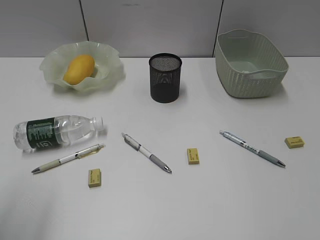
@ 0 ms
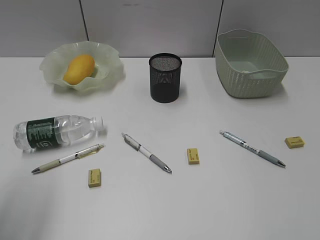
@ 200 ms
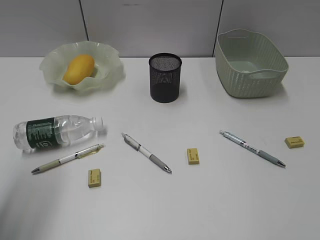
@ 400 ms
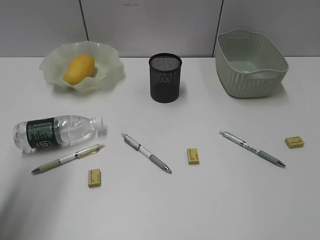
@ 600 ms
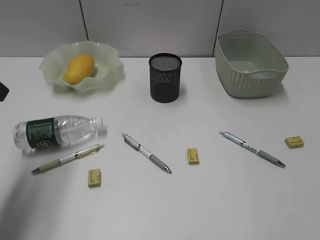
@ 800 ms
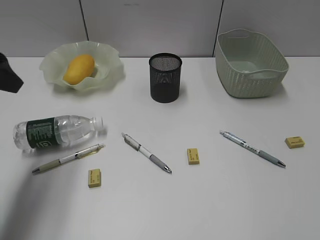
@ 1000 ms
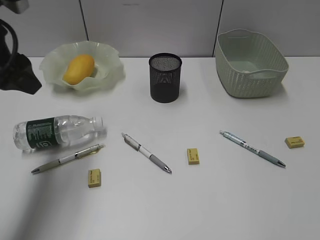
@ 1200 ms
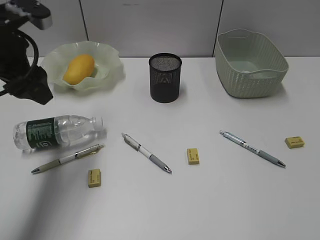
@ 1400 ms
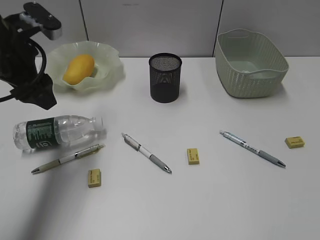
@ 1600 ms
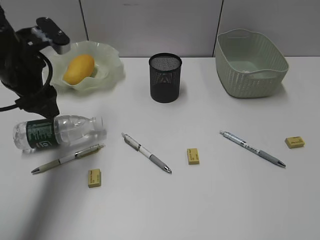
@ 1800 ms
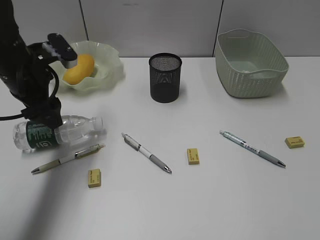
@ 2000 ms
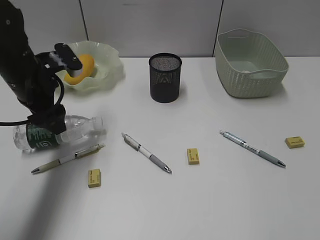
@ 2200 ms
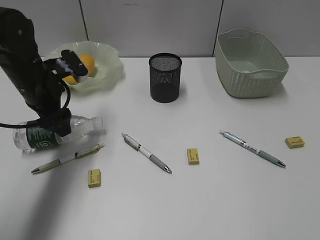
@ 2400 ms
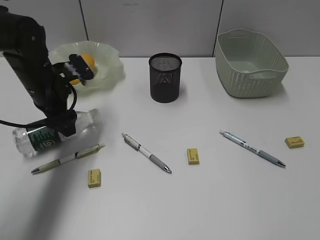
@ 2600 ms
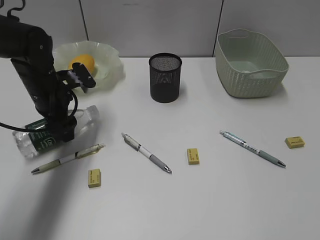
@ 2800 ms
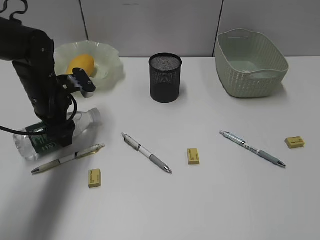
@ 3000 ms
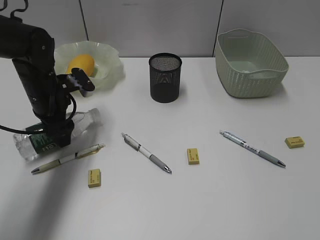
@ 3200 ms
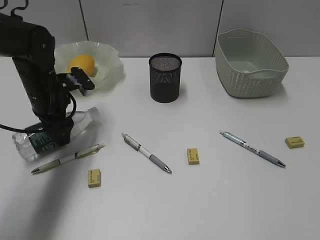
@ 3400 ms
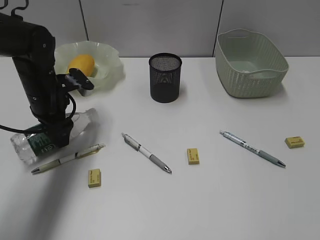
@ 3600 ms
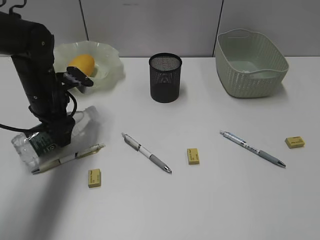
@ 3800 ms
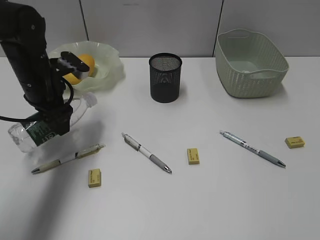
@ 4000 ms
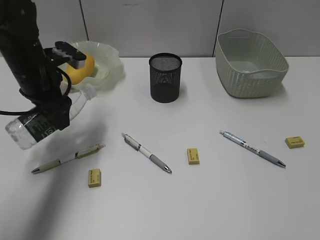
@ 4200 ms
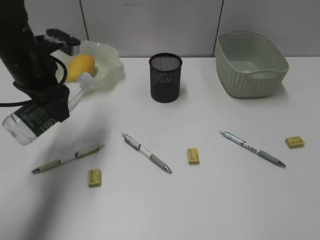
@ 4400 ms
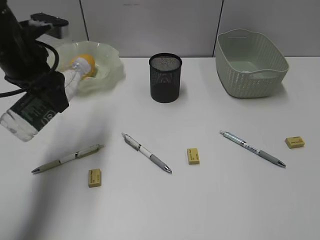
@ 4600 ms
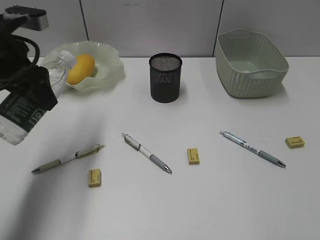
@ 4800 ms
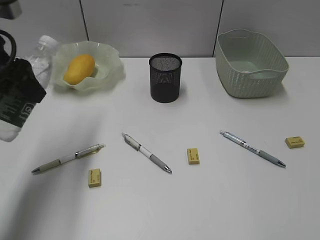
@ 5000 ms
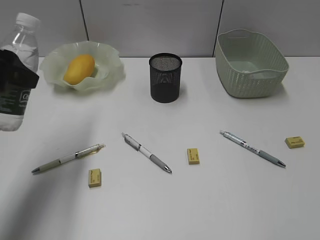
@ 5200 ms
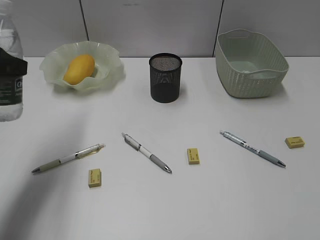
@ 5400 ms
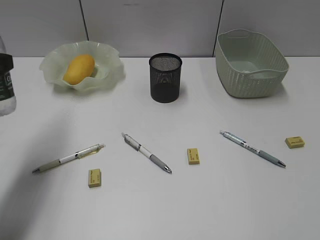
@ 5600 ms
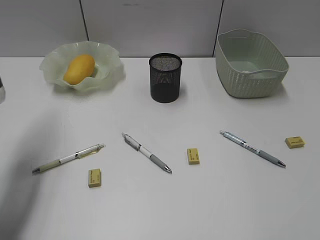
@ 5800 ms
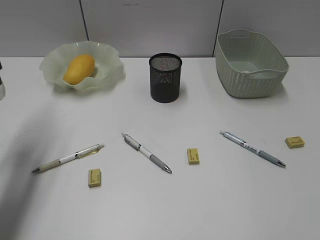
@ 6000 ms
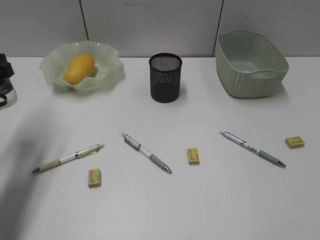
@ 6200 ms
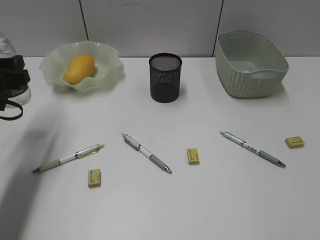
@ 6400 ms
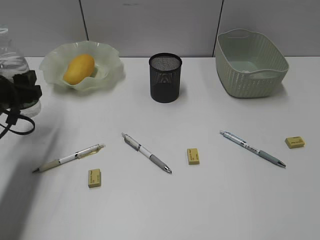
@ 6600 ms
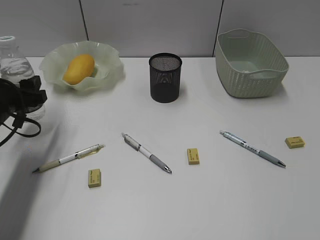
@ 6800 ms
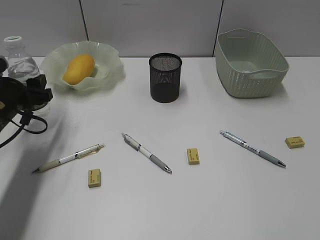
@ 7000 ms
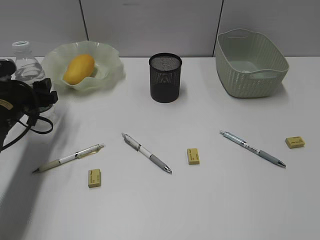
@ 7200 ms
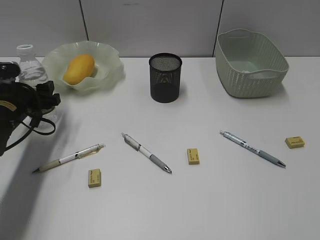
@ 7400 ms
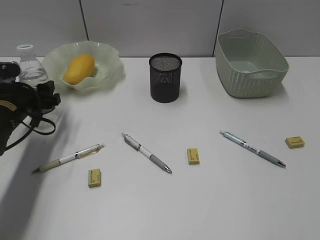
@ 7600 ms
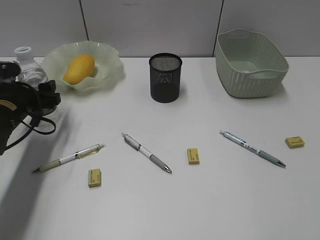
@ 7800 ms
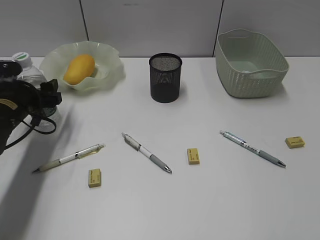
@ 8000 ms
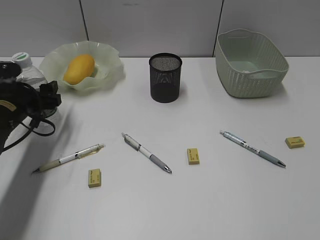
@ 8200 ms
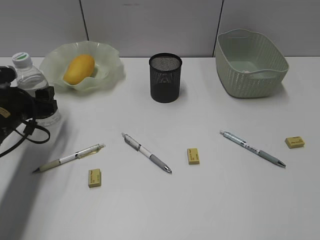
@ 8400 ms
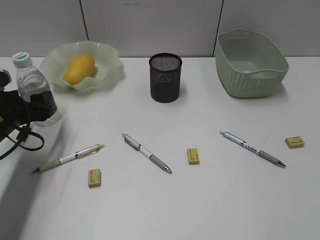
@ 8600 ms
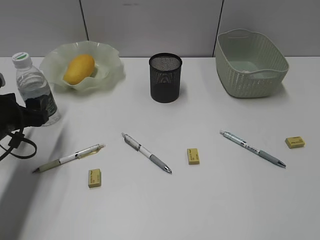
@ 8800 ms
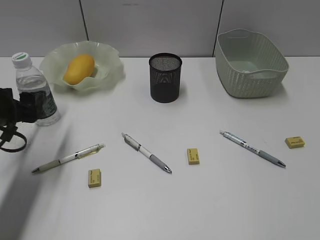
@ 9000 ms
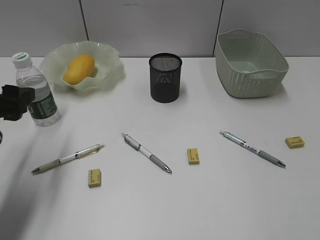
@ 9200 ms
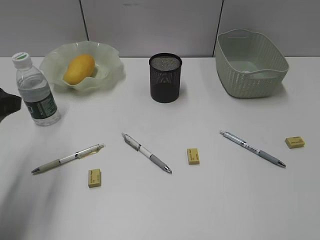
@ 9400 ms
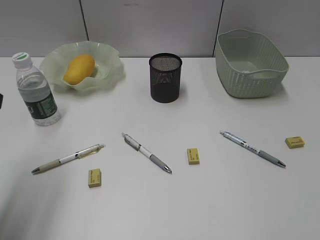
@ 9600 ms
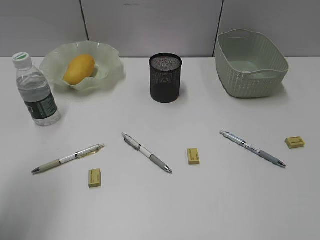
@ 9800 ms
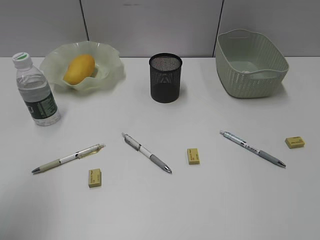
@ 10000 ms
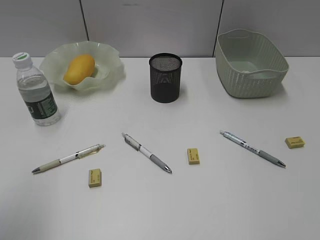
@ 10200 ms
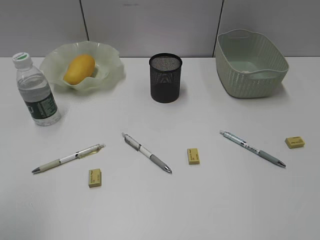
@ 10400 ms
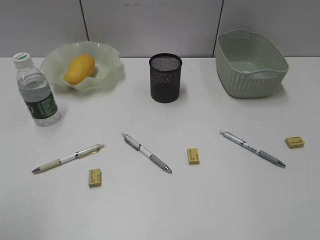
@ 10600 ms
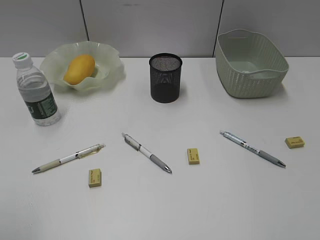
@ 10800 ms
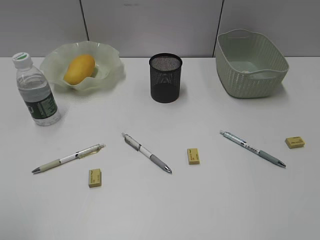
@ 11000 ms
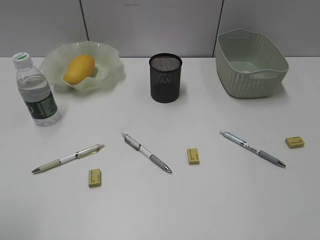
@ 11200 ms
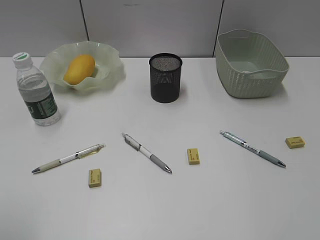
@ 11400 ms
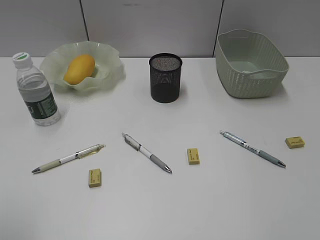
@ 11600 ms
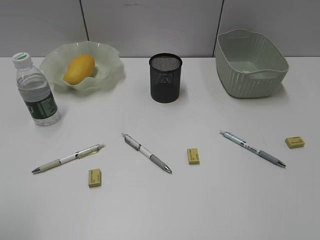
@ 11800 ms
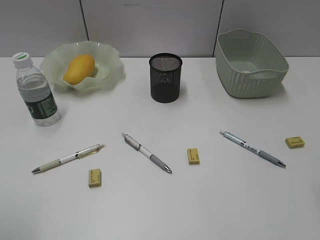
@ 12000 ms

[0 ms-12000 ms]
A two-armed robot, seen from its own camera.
Step, 0 ms to 3400 ms: Grasp the bottle with left gripper.
Step, 3600 ms to 8600 ms: Stand the bottle with left gripper.
0 ms to 1600 ms: The left gripper shifts approximately 20 cm forward.
1600 ms to 3000 ms: The left gripper heads downward and forward, covering some 15 cm.
3000 ms to 4400 ms: The left gripper moves upward, roughly 10 cm.
4400 ms to 6000 ms: The left gripper travels backward and to the left by some 15 cm.
6000 ms to 7600 ms: The left gripper goes about 15 cm downward and forward.
7600 ms to 9000 ms: The left gripper shifts roughly 5 cm backward.
9000 ms to 10400 ms: The left gripper heads backward and upward, covering approximately 25 cm.

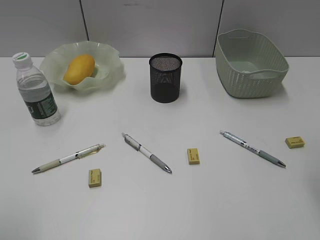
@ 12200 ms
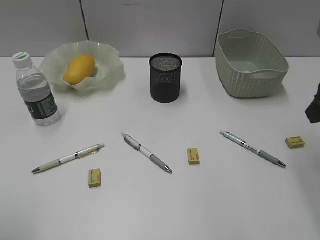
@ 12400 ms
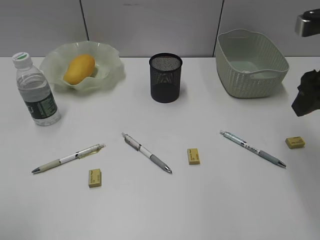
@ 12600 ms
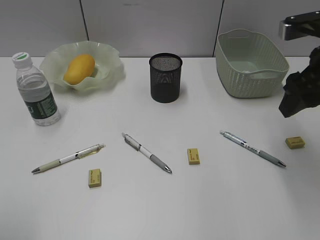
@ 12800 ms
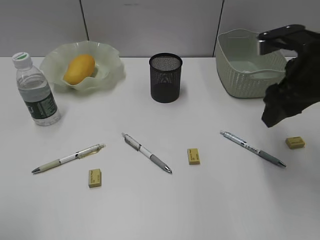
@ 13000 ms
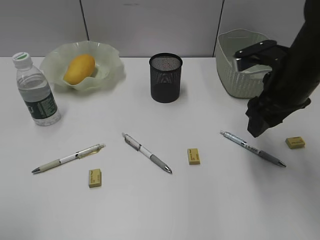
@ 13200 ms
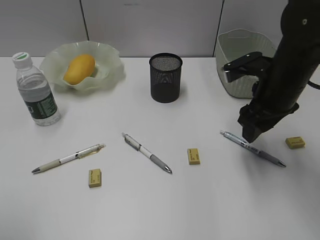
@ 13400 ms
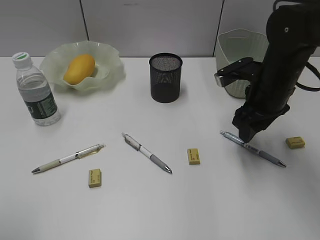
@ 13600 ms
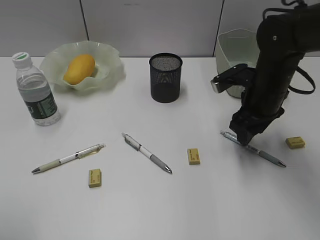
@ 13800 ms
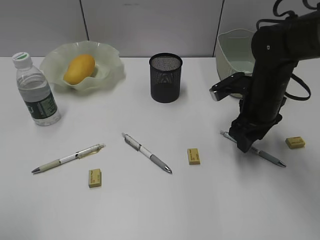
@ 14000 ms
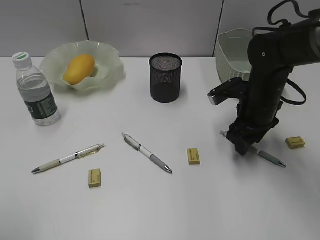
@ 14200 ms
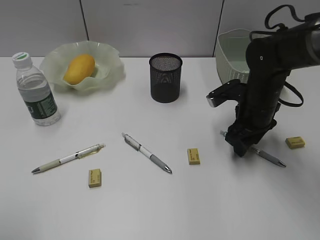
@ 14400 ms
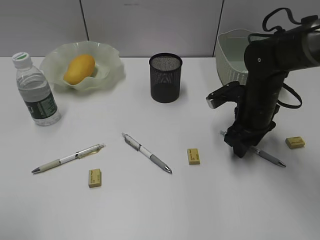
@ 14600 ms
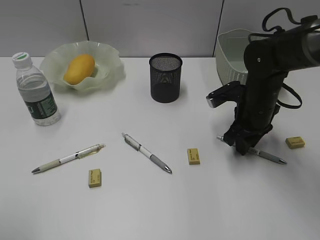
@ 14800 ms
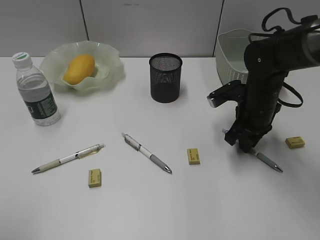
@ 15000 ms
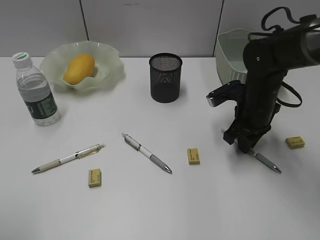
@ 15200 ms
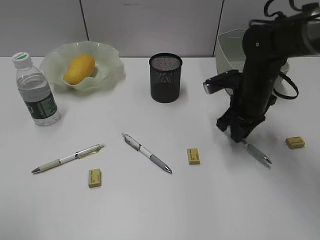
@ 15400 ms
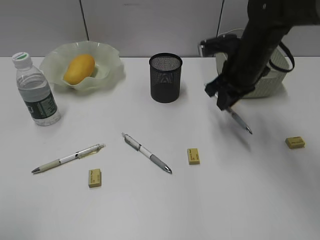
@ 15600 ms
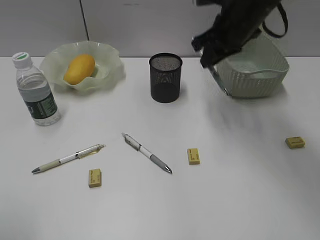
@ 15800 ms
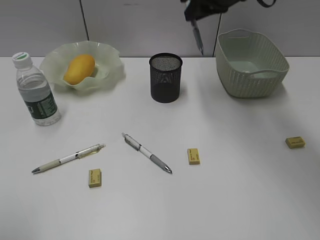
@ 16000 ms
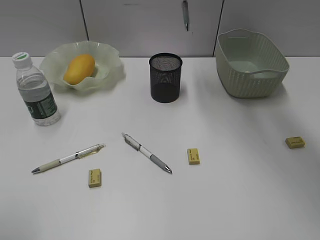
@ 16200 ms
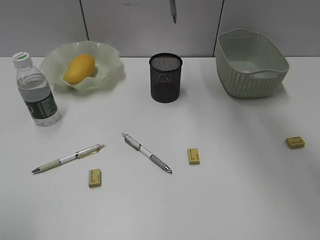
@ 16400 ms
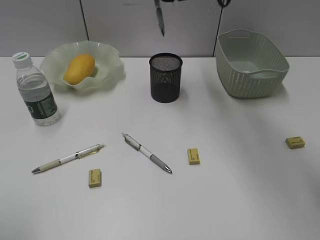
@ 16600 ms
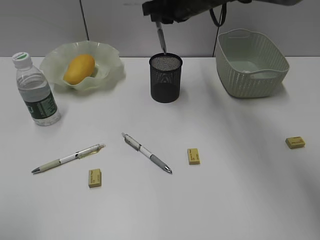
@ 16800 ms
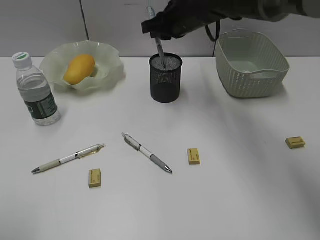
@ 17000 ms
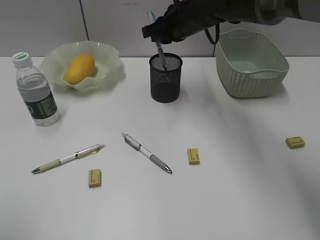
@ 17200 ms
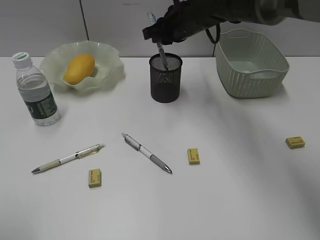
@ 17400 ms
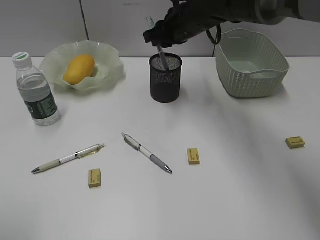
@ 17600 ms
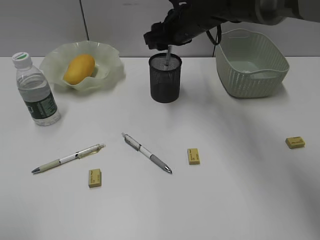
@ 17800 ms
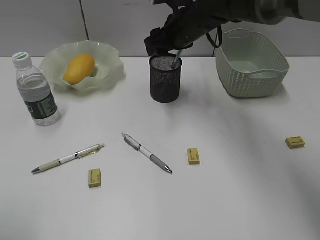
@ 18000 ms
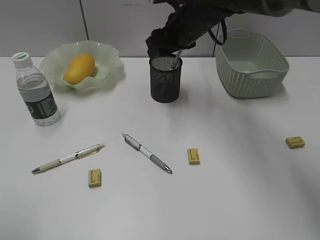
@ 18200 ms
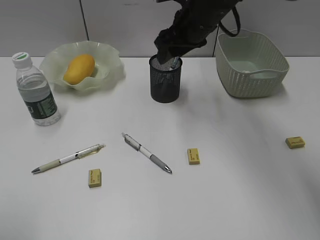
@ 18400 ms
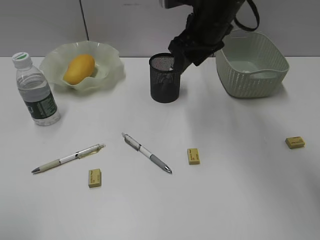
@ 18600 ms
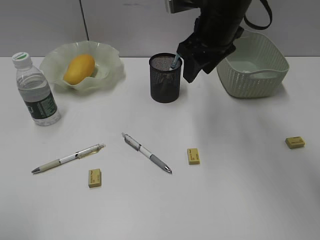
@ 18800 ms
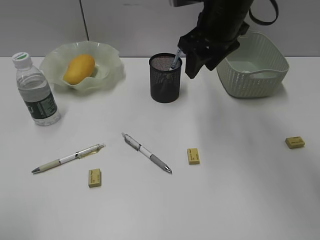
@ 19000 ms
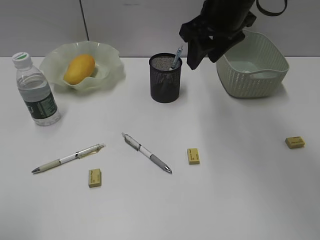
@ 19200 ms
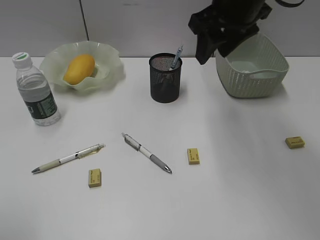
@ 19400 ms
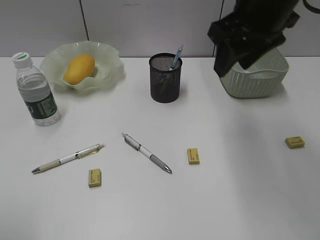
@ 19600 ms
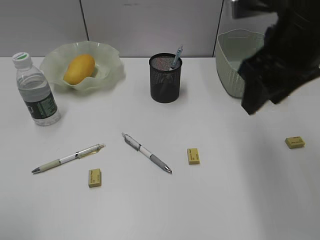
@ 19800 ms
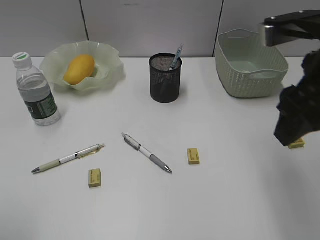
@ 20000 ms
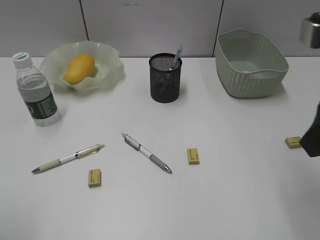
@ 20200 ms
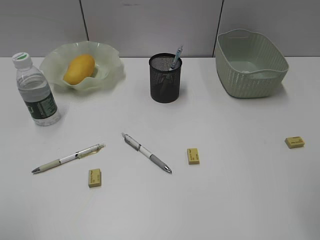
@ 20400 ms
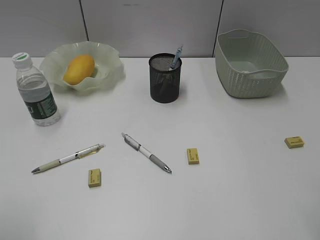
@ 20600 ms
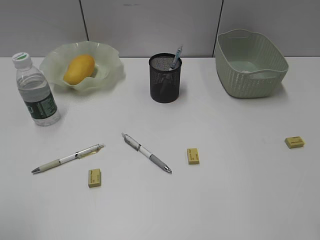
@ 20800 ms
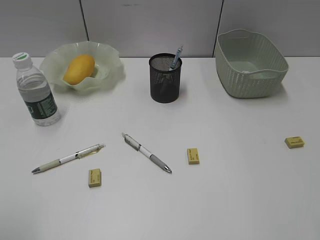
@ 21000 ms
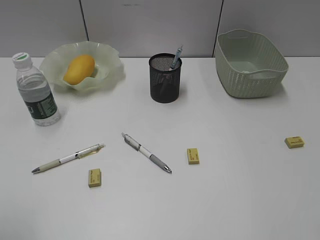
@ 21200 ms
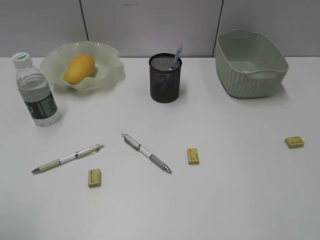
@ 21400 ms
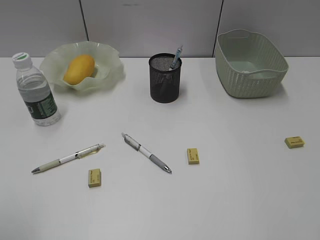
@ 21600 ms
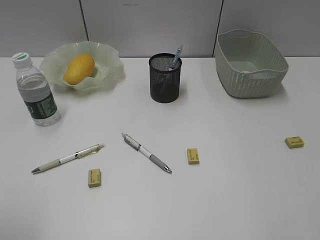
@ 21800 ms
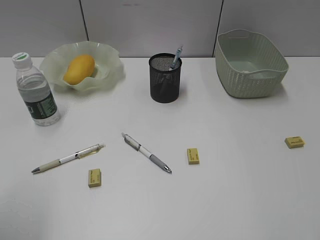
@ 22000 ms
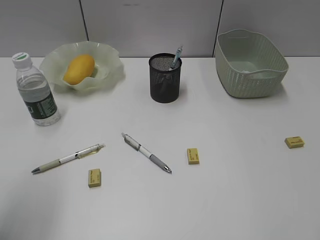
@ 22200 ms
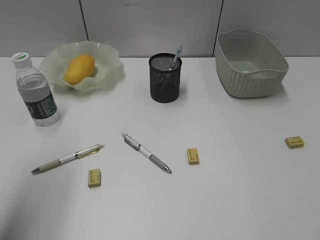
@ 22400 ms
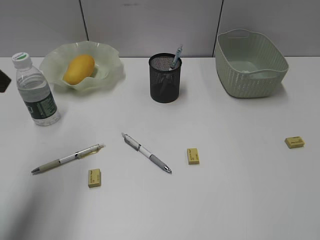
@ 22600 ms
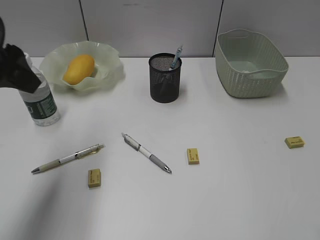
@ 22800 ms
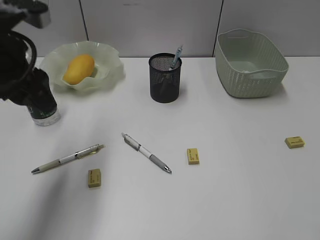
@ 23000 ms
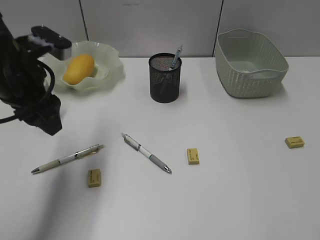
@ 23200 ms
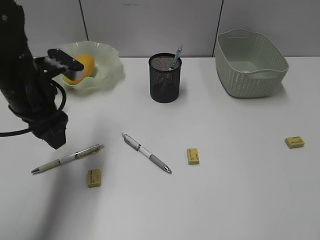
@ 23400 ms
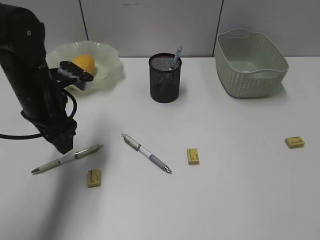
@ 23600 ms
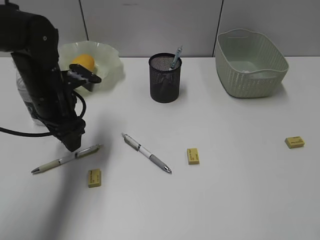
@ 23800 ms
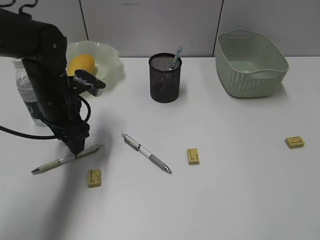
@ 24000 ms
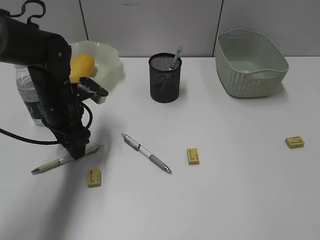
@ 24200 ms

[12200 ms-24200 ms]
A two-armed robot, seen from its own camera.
Step, 12200 ms to 15000 ms: Grasp the blue pen with right gripper.
Step, 15200 ms to 17800 ms: Place the blue pen in pen holder with right gripper.
12200 ms to 13800 ms: The right gripper goes approximately 25 cm forward, downward and to the left.
13800 ms to 15200 ms: The right gripper closes.
15200 ms to 16600 ms: The right gripper travels upward, to the left and forward by some 25 cm.
16600 ms to 18200 ms: The right gripper travels downward by about 10 cm, and opens its fingers.
18200 ms to 19800 ms: The right gripper moves backward, to the right and upward, some 20 cm.
19800 ms to 21200 ms: The right gripper travels backward and to the right by roughly 25 cm.
21200 ms to 22600 ms: The left gripper travels forward by roughly 15 cm.
22600 ms to 24200 ms: The left gripper heads downward, forward and to the right, covering about 25 cm.
